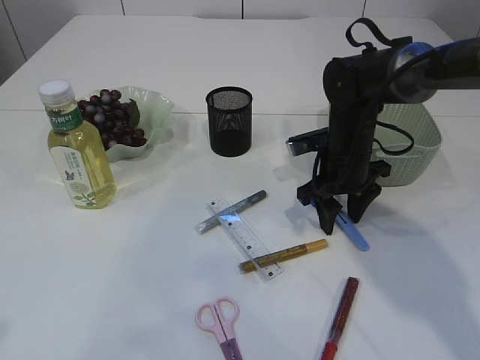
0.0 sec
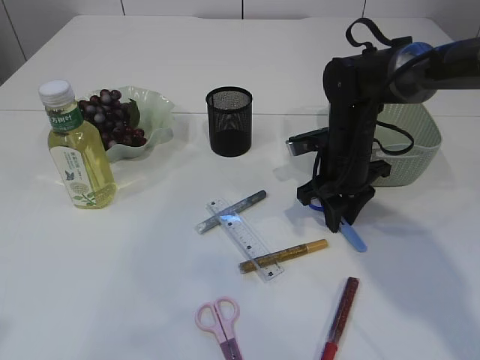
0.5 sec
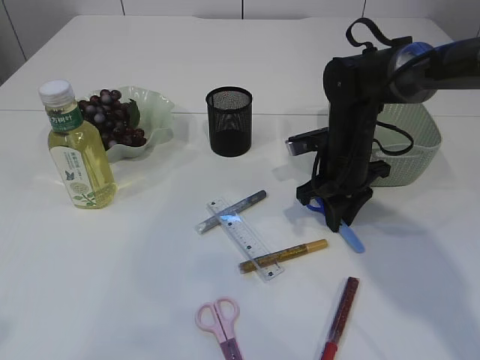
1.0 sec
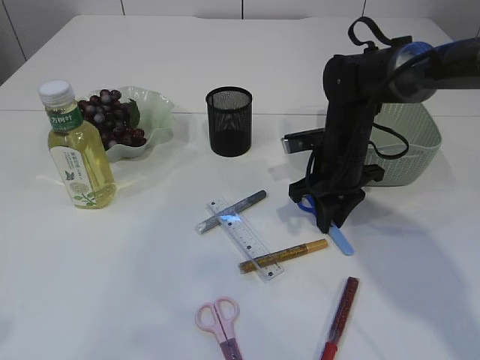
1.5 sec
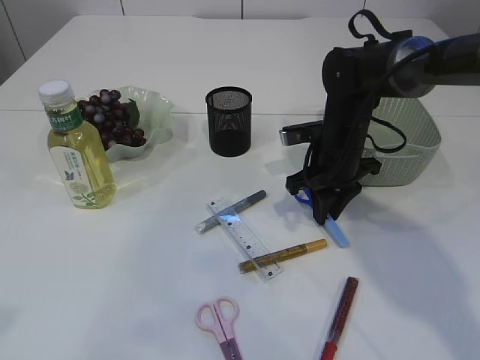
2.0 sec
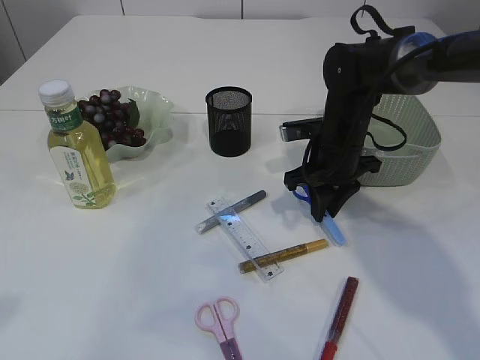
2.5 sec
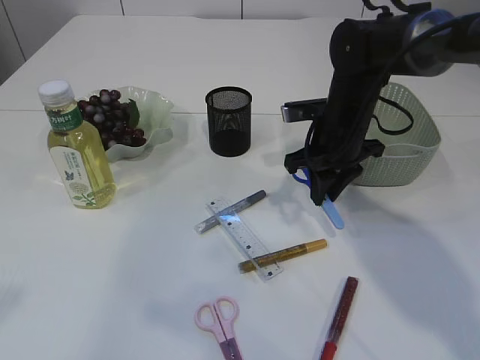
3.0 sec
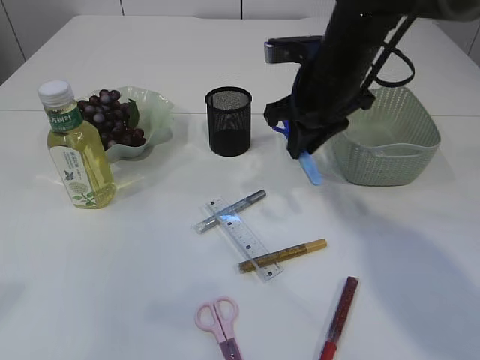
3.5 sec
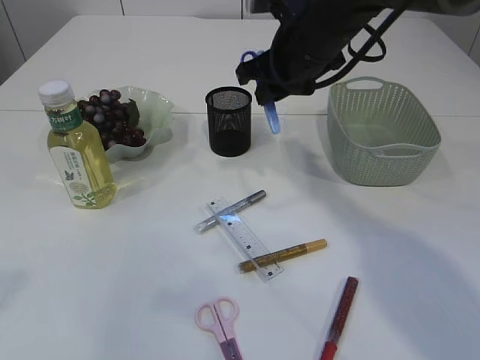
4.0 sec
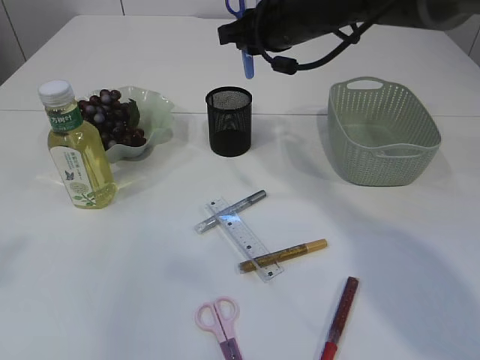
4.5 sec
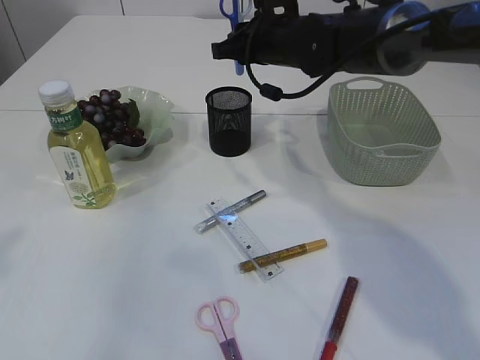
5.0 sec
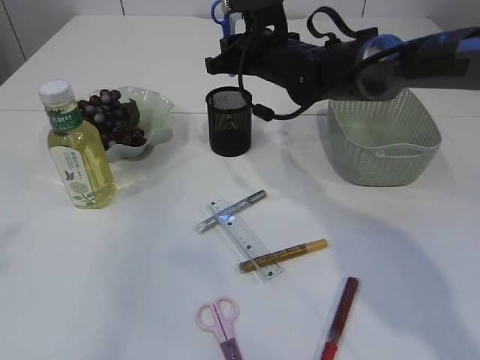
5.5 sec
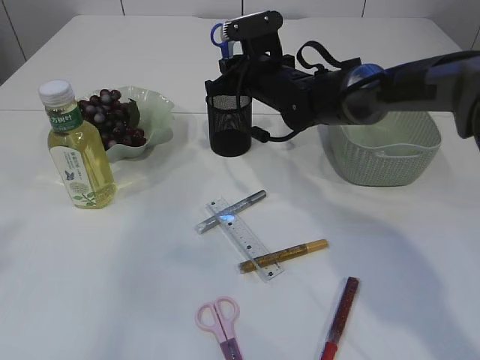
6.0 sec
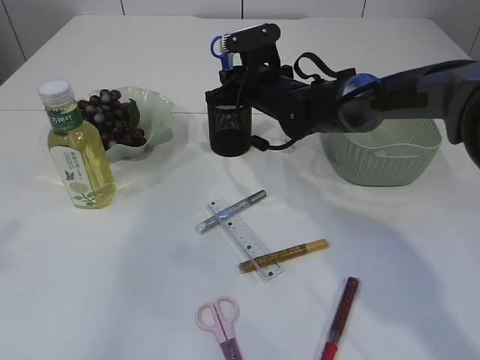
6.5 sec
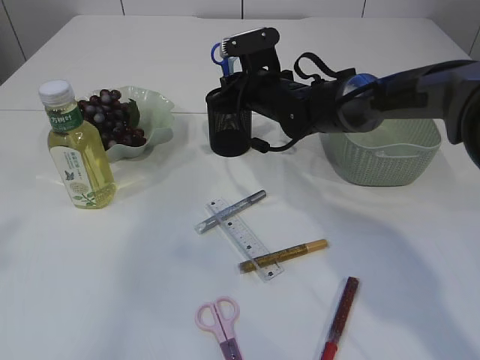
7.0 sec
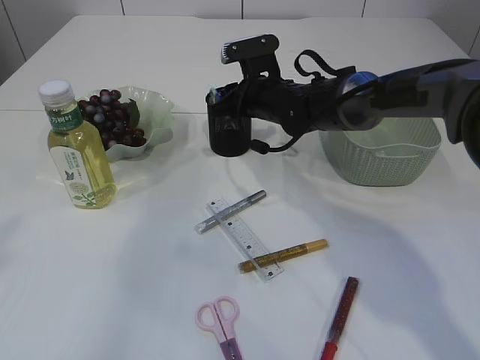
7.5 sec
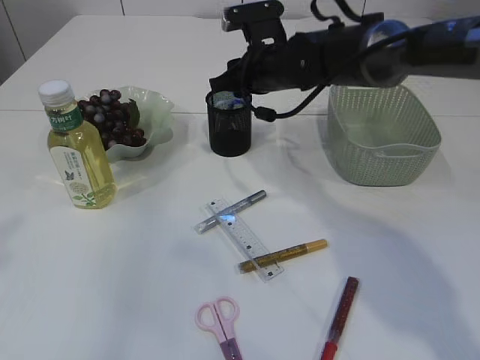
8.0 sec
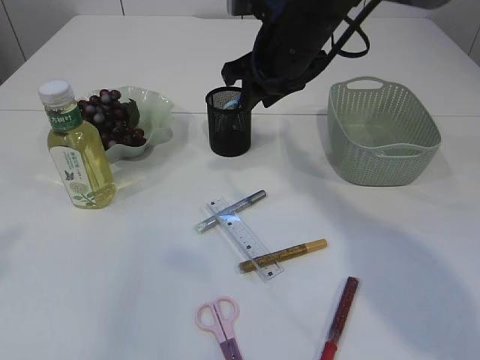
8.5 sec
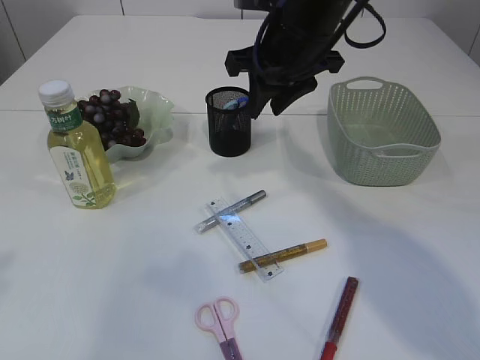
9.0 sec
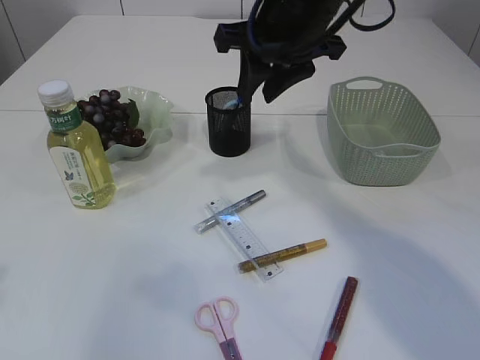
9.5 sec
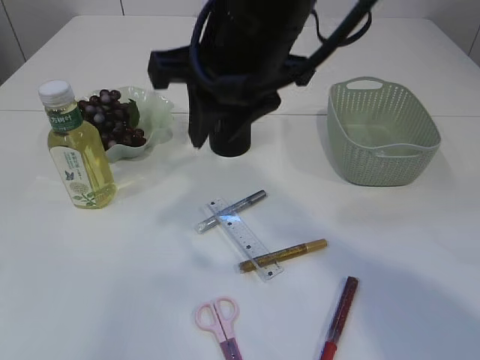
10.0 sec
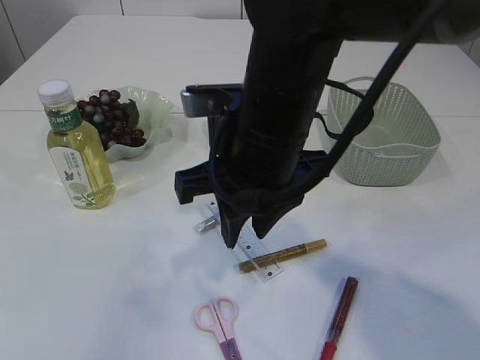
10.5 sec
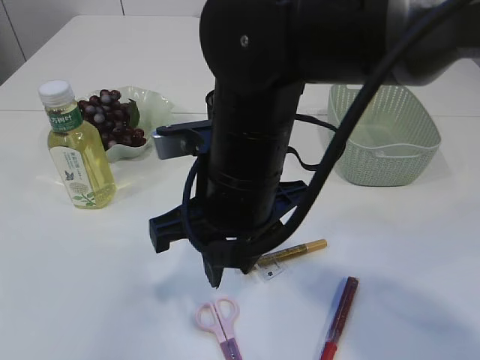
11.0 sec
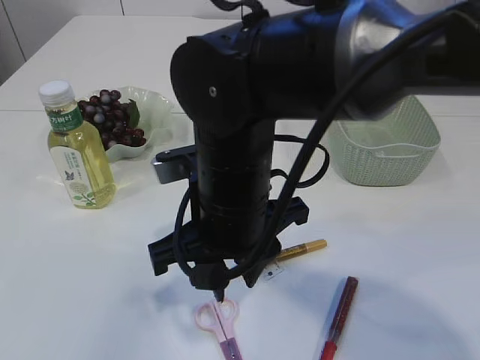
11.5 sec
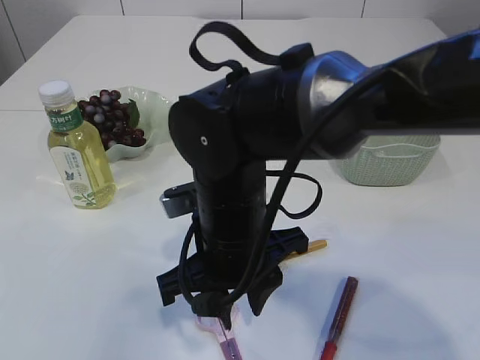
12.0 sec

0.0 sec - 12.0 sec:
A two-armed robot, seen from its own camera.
Step, 0.0 sec - 3.0 sec: pick up the blue scissors.
Step, 3.5 sec - 8.5 sec: Place the blue scissors into the pen holder.
0.0 sec - 2.0 sec: The right gripper closes its fingers.
2.0 sec - 4.0 sec: The right gripper heads upward, covering about 15 cm.
4.0 sec - 6.0 sec: The right gripper goes roughly 10 cm downward and forward.
6.0 sec - 8.0 sec: The grippers move only a little.
8.0 sec - 10.0 sec: The right gripper goes some 20 cm backward and upward.
10.0 sec - 12.0 sec: The right gripper moves downward, about 15 cm.

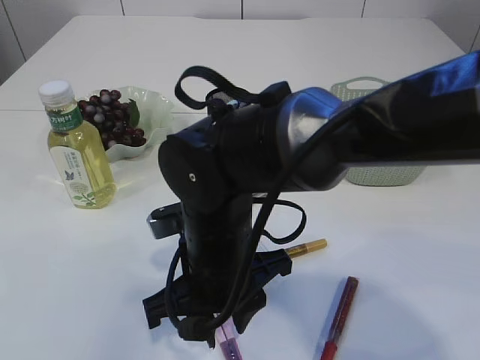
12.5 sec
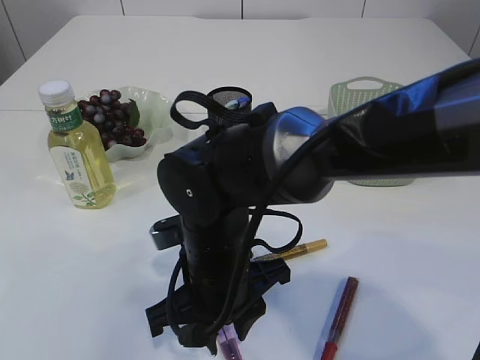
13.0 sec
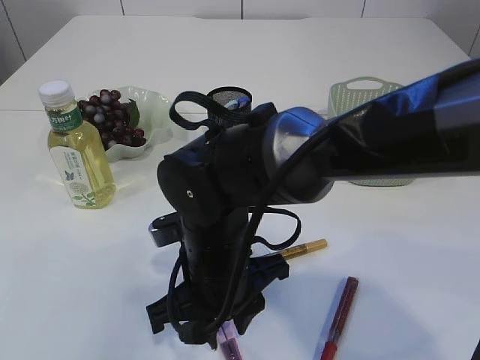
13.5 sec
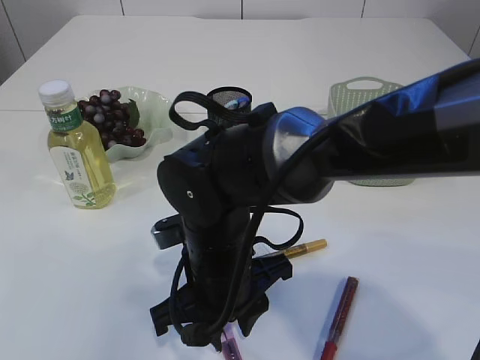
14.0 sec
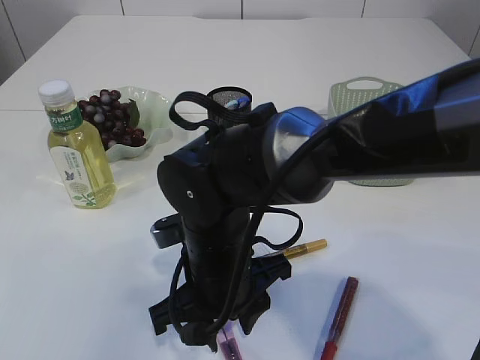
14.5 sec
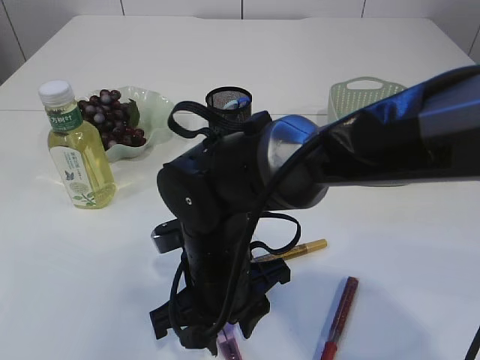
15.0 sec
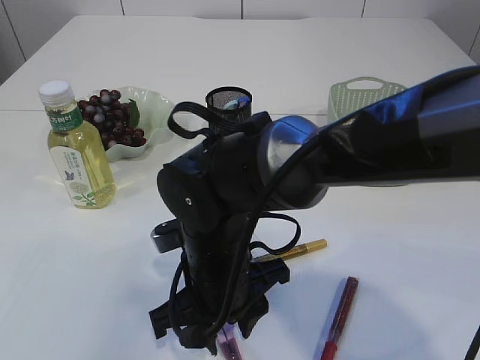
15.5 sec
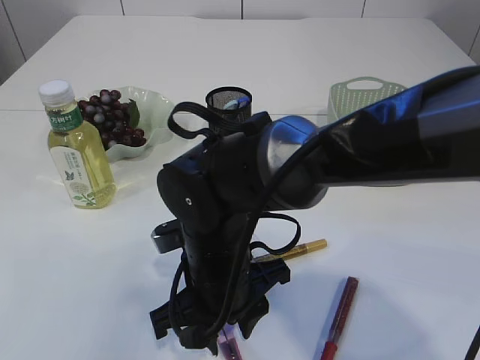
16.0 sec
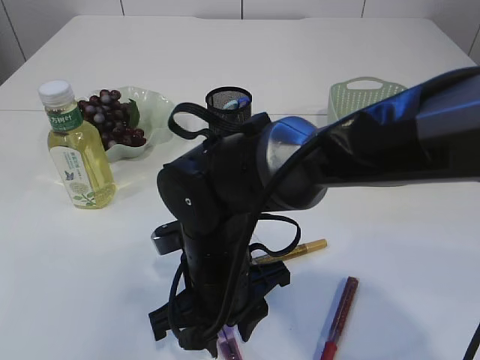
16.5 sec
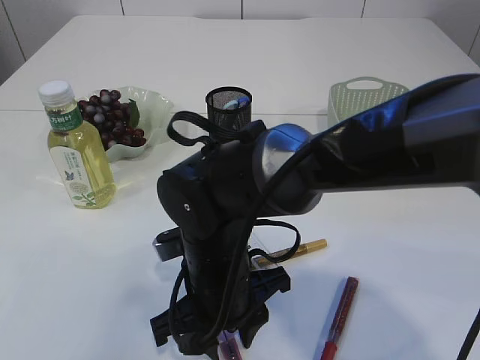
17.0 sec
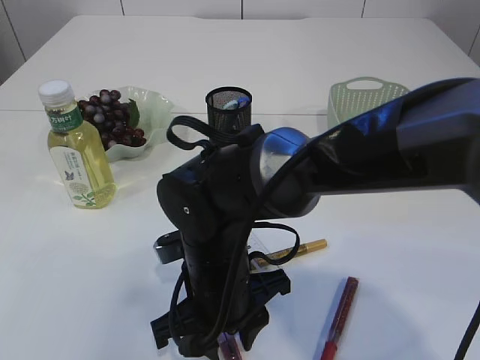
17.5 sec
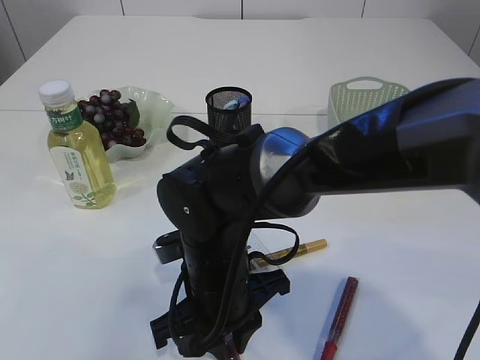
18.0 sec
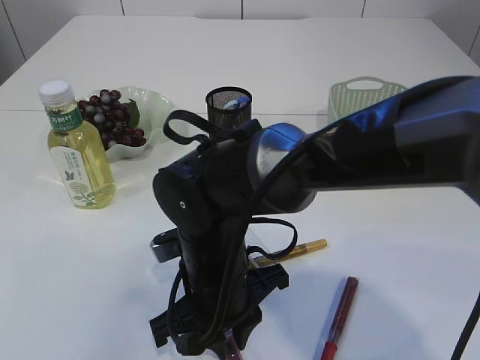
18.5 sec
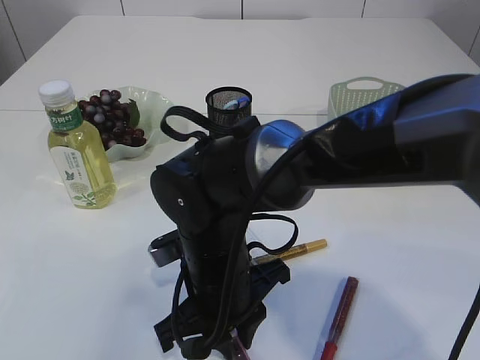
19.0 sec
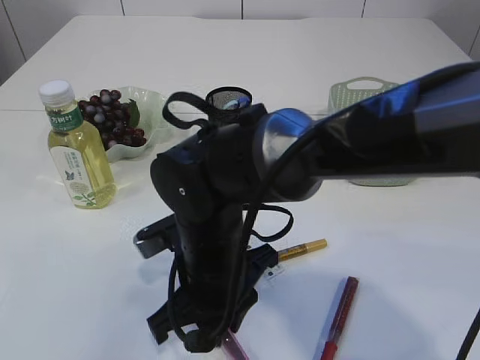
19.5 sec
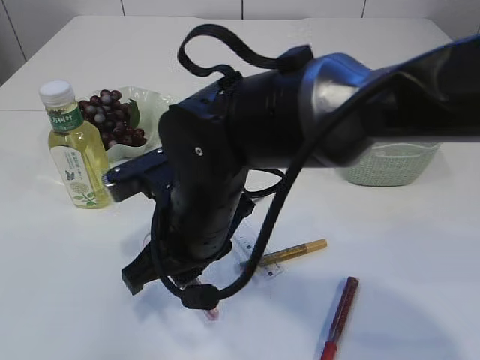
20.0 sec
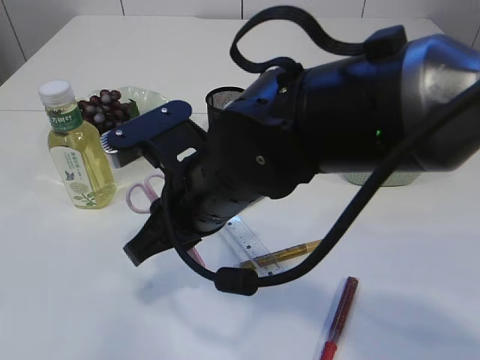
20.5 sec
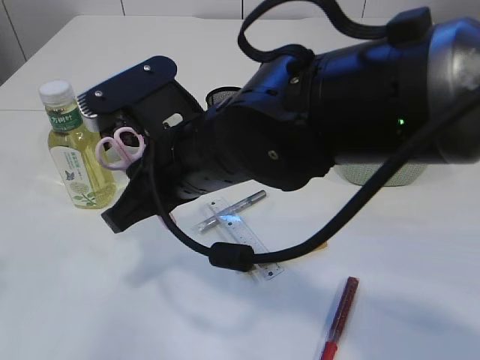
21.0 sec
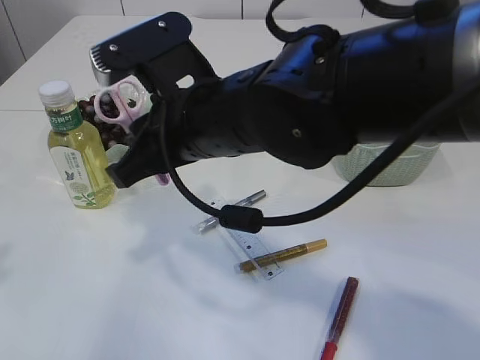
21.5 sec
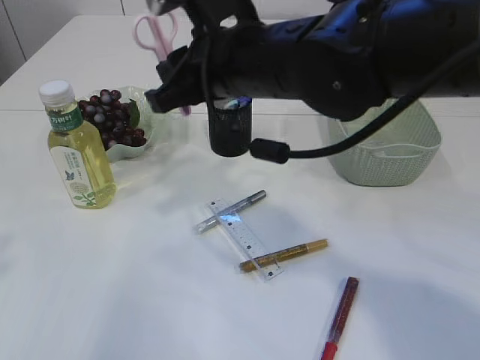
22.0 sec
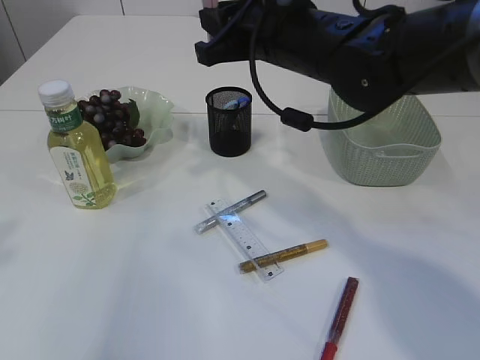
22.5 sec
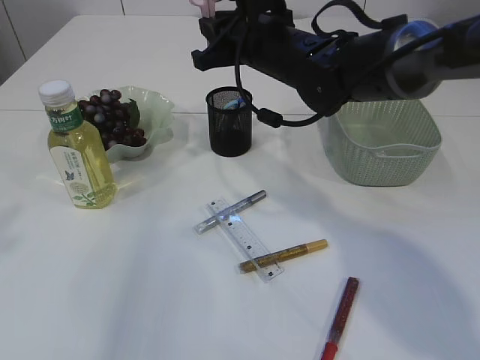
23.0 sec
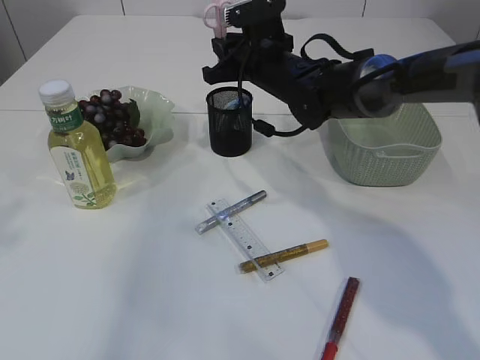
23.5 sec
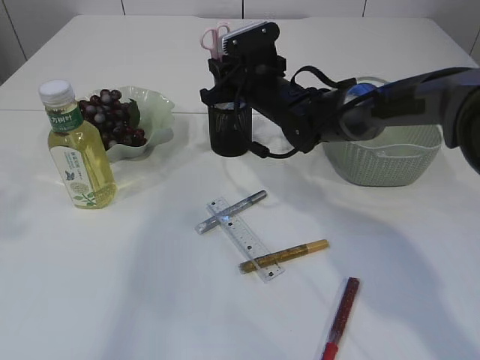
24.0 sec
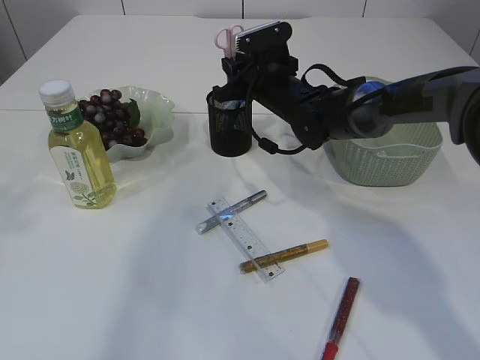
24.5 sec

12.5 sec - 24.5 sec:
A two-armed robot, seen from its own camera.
Step, 12.5 sec - 20.0 sec: pick up the pink scissors.
12.5 sec - 14.5 sec: There are only small adjustments of the grippers.
14.5 sec - 16.5 sec: Both grippers stay put.
16.5 sec - 18.5 sec: Neither gripper changes place.
18.5 sec - 20.5 sec: The right gripper travels upward by some 10 cm.
20.5 sec - 22.5 sec: The right gripper is displaced forward, to the right and upward by roughly 15 cm.
22.5 sec - 24.5 sec: The right gripper moves forward and downward, approximately 15 cm.

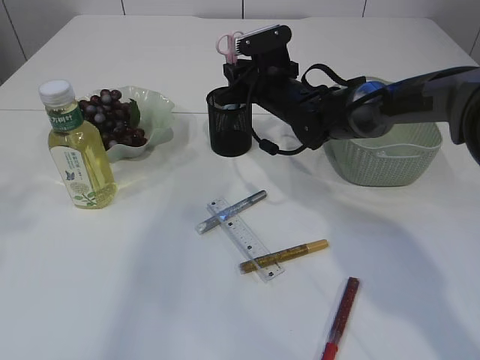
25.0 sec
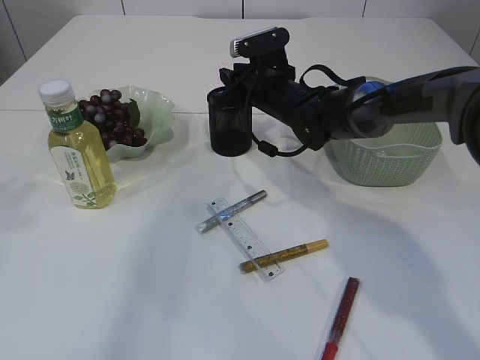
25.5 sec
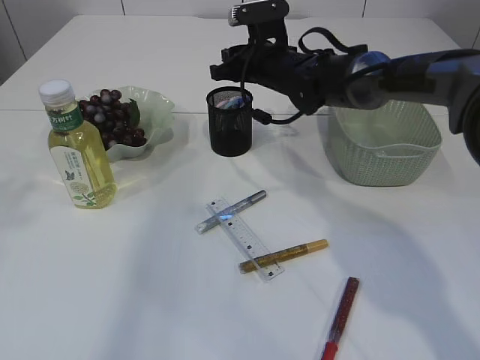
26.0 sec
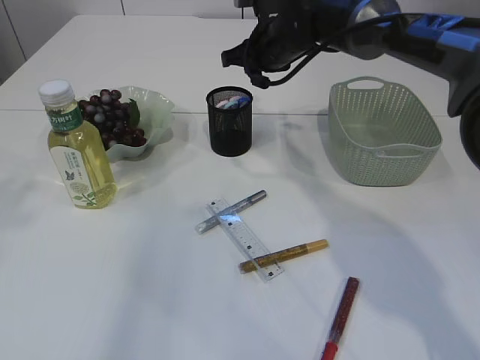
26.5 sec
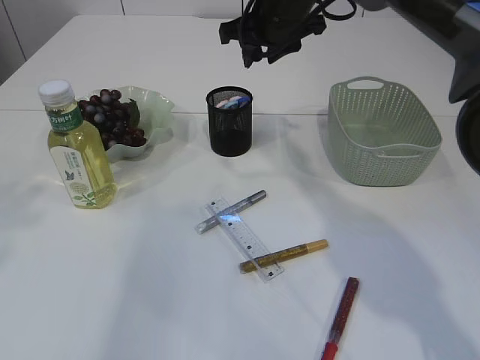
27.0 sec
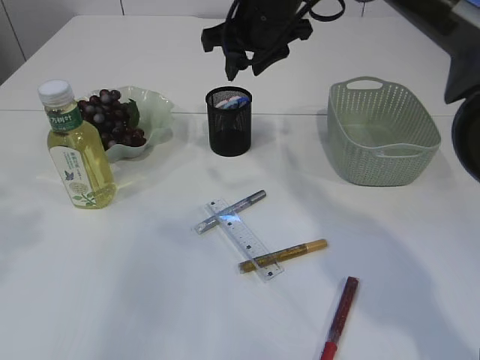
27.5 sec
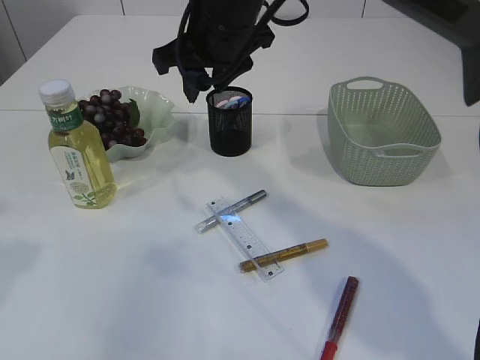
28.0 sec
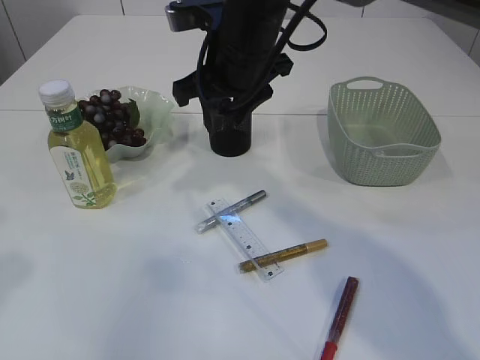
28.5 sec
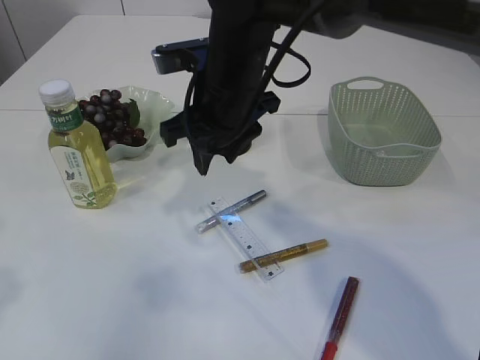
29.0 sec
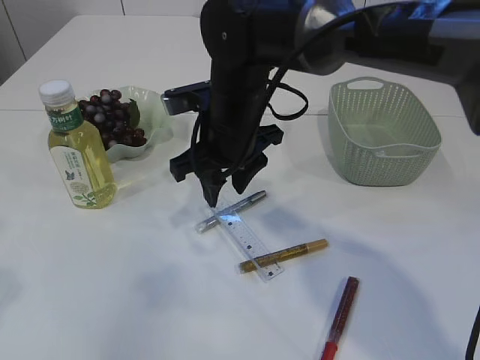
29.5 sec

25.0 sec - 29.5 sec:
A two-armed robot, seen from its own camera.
25.0 sec - 27.0 sec: The right gripper heads upward, covering some 15 cm.
27.0 sec - 29.5 sec: The right gripper moves backward, downward and to the left, about 15 cm; the left gripper moves roughly 5 cm.
